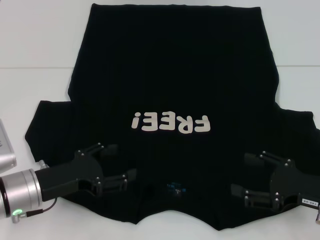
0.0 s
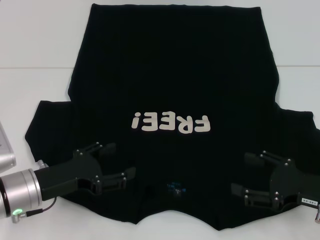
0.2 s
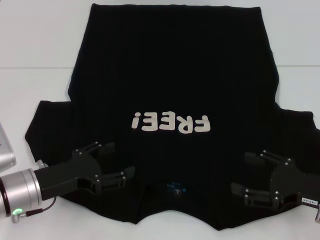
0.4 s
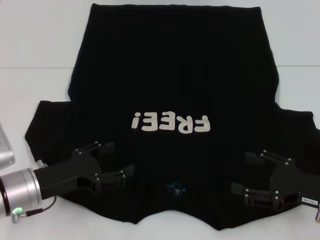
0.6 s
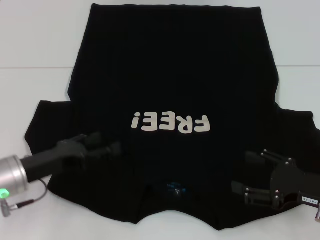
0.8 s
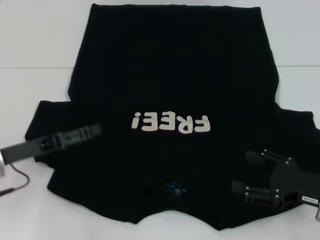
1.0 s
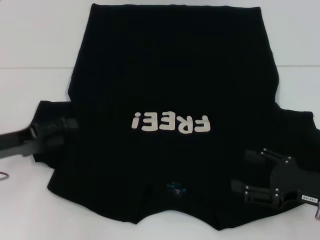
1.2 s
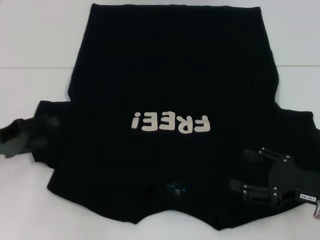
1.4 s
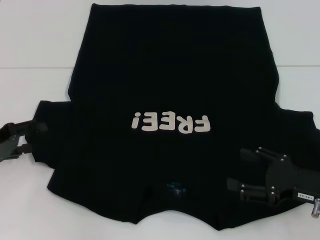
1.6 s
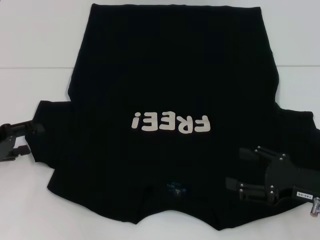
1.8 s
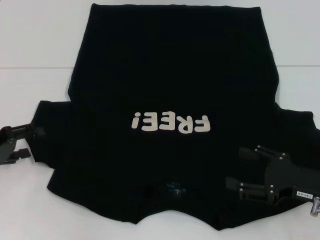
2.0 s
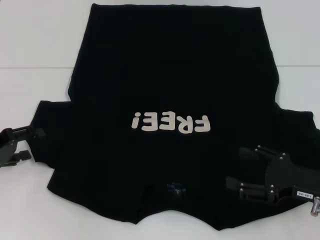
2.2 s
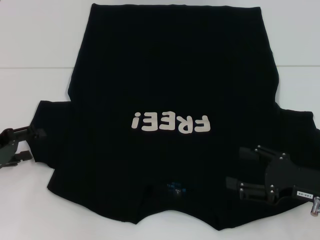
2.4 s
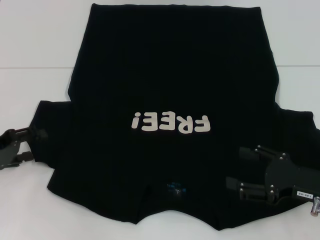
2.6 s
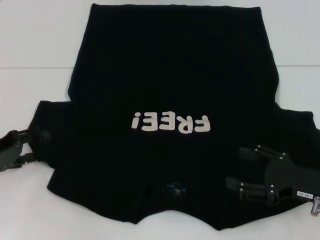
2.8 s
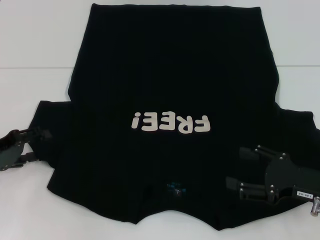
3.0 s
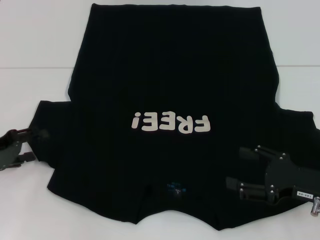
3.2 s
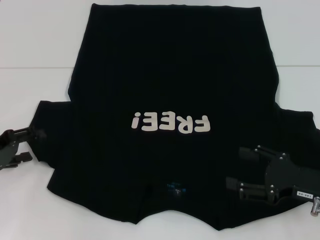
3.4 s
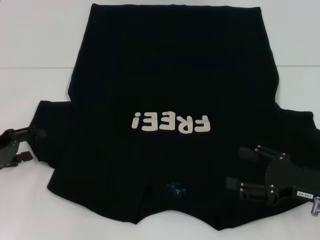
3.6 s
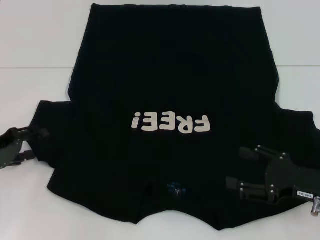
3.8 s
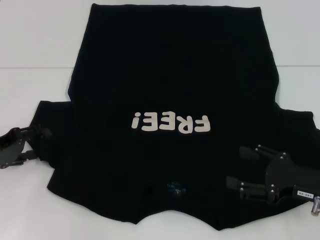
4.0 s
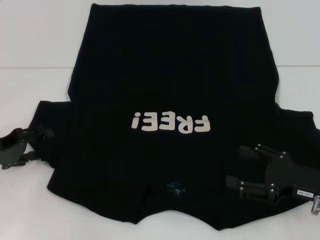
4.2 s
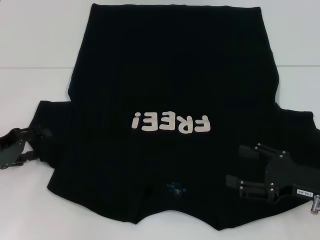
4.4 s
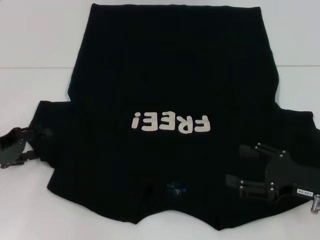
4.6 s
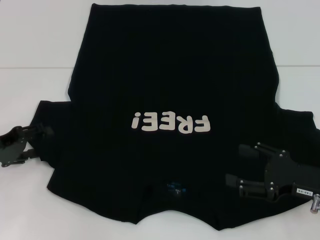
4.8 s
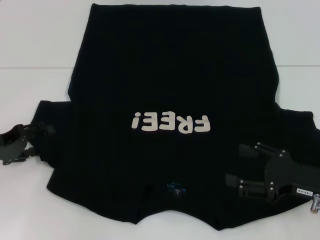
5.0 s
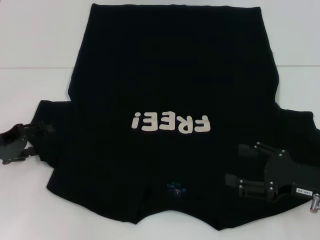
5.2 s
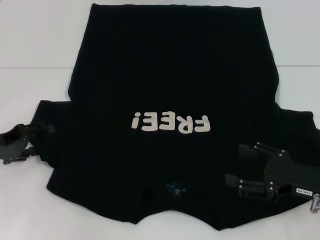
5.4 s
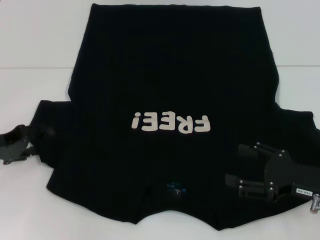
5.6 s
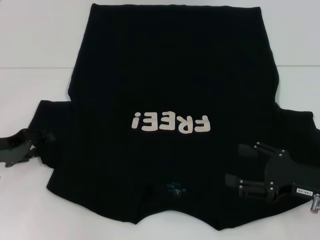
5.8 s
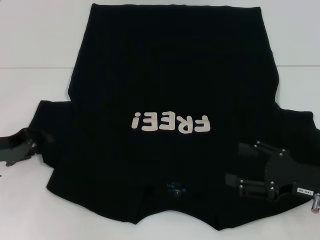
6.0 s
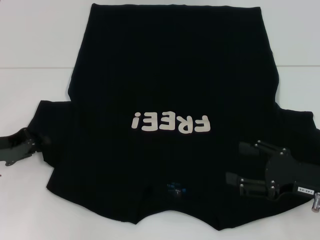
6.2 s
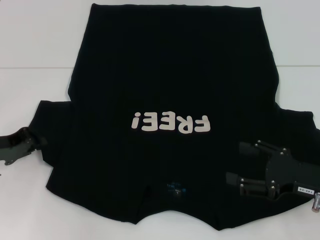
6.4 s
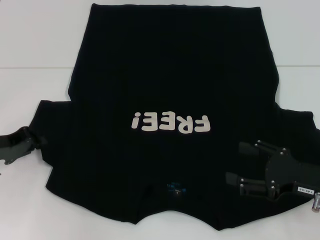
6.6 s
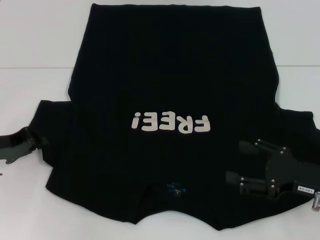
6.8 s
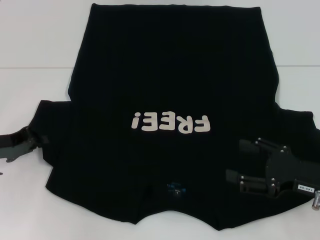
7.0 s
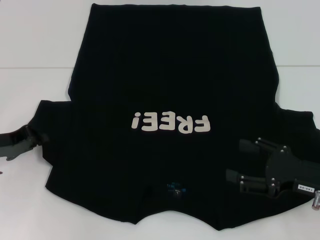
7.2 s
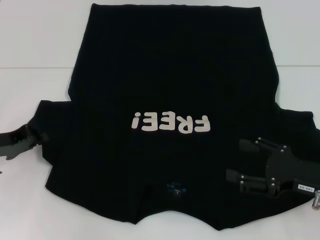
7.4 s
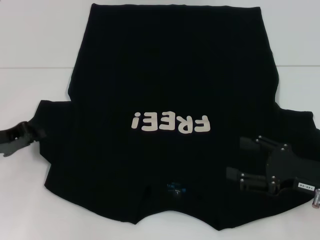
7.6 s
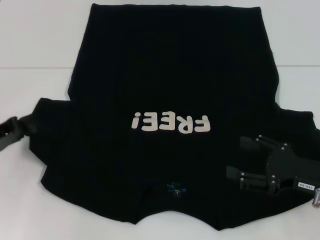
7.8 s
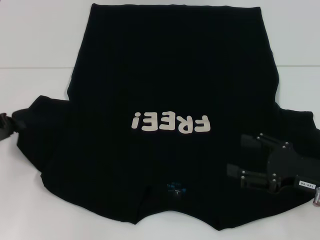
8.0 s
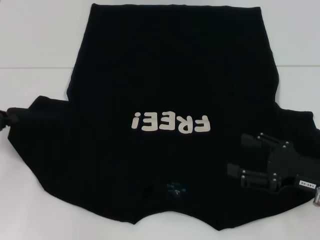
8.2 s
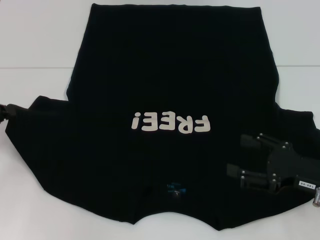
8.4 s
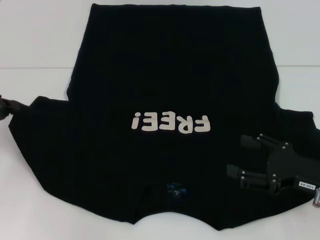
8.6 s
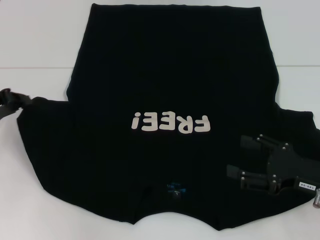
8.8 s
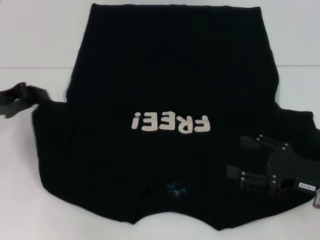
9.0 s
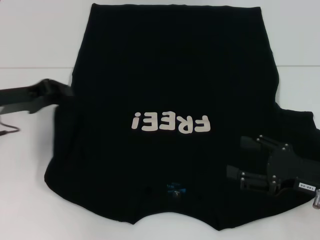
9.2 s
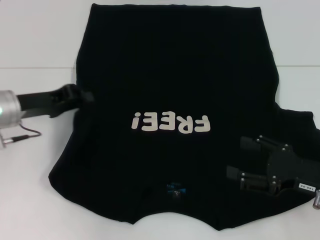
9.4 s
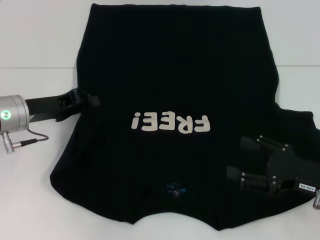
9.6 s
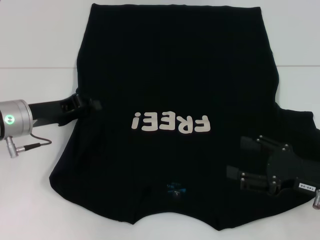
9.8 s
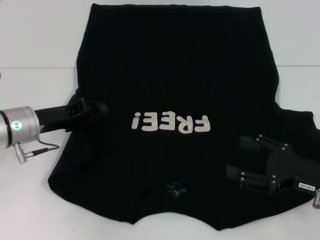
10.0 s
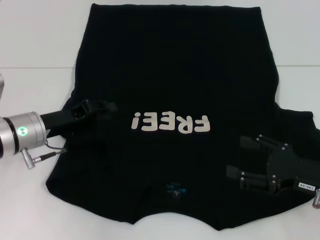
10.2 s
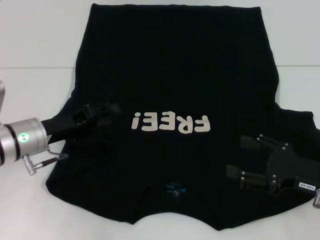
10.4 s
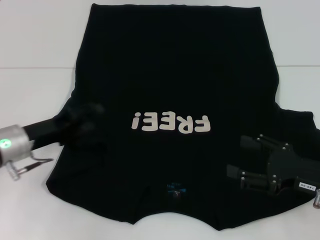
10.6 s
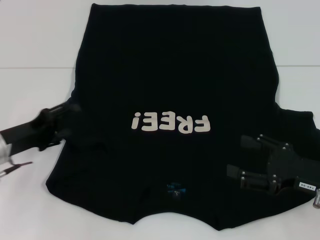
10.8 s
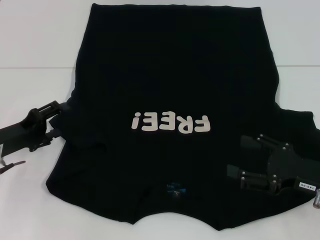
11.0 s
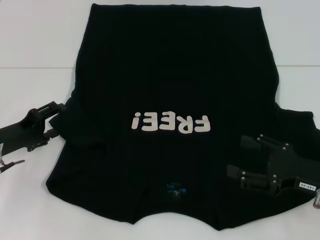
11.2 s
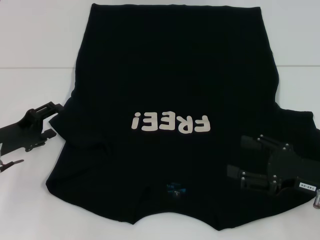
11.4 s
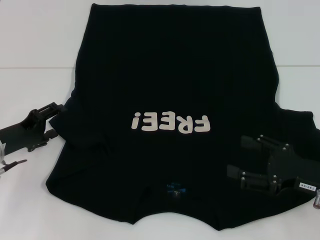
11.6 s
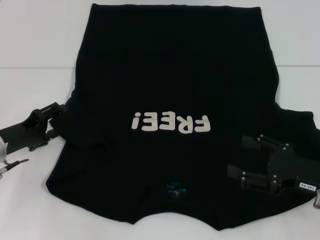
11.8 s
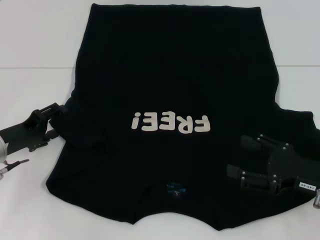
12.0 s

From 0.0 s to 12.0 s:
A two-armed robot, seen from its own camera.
From 0.0 s to 1.6 s: The left gripper is displaced to the left by roughly 10 cm.
From 1.6 s to 3.0 s: The two grippers keep their place.
From 3.0 s to 4.4 s: Neither gripper changes place.
From 4.4 s to 6.0 s: There are only small adjustments of the grippers.
From 6.0 s to 7.6 s: The left gripper closes up.
From 7.6 s to 9.0 s: The left gripper heads upward, covering approximately 5 cm.
From 9.0 s to 10.4 s: The left gripper is displaced to the right and downward by approximately 10 cm, and opens up.
From 10.4 s to 12.0 s: The left gripper moves to the left, roughly 5 cm, and opens its fingers.

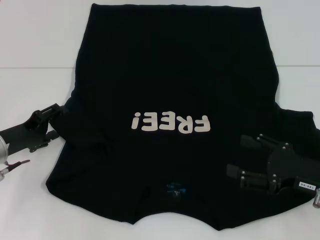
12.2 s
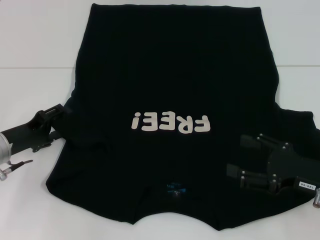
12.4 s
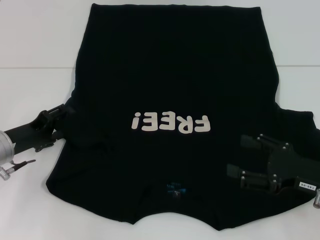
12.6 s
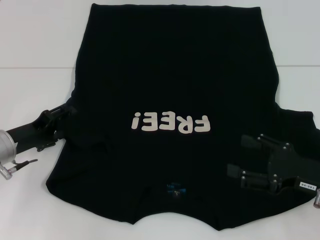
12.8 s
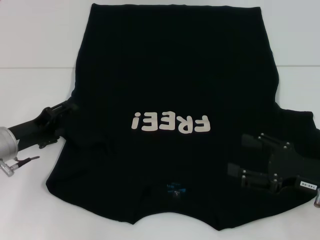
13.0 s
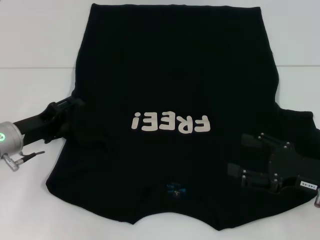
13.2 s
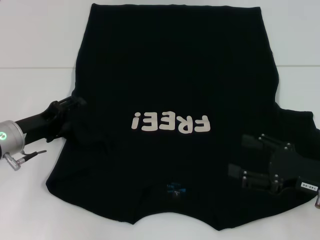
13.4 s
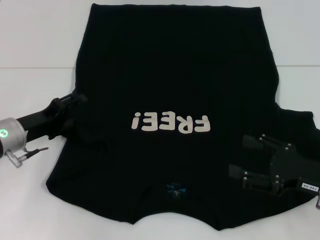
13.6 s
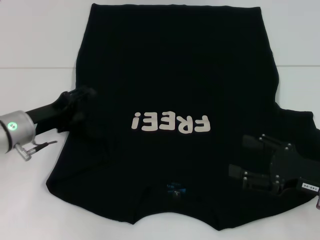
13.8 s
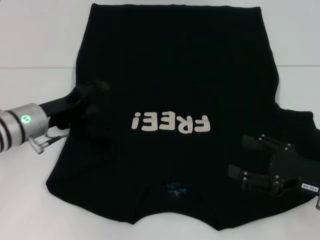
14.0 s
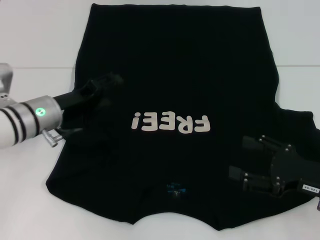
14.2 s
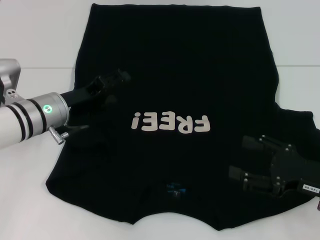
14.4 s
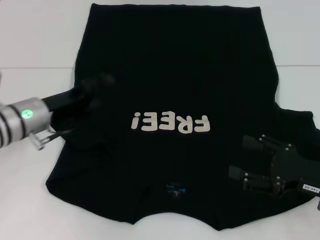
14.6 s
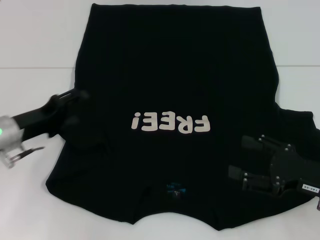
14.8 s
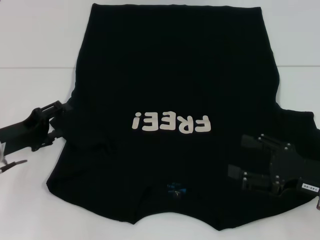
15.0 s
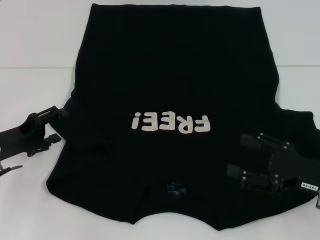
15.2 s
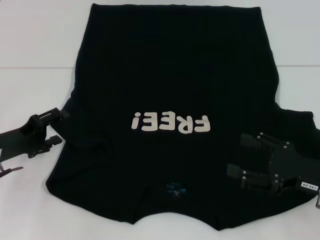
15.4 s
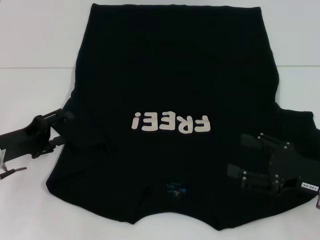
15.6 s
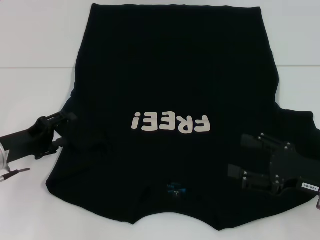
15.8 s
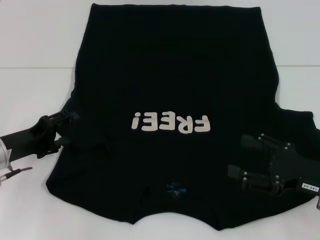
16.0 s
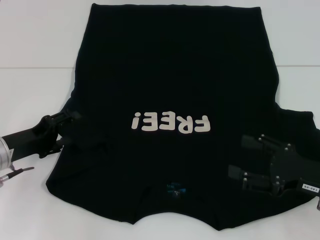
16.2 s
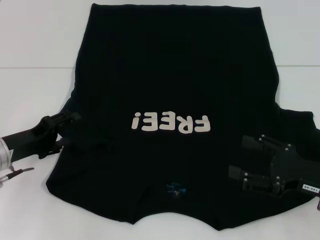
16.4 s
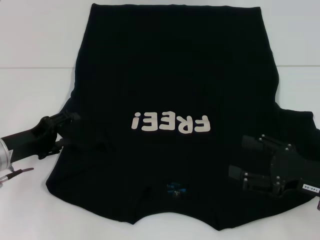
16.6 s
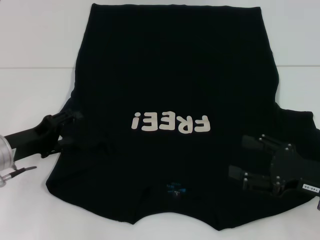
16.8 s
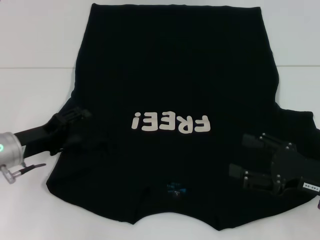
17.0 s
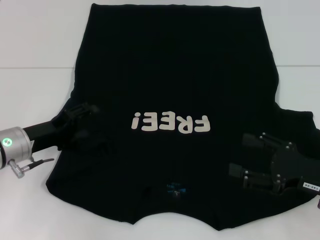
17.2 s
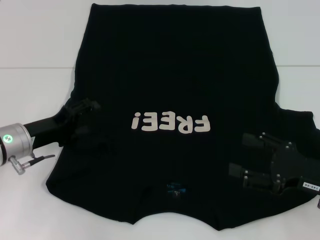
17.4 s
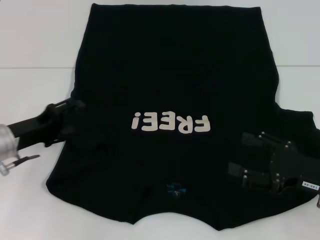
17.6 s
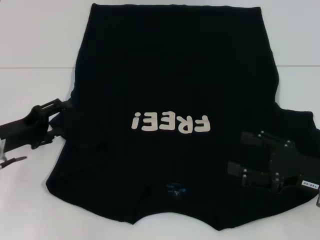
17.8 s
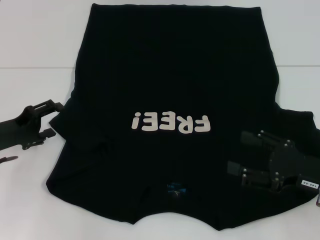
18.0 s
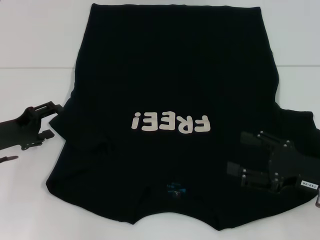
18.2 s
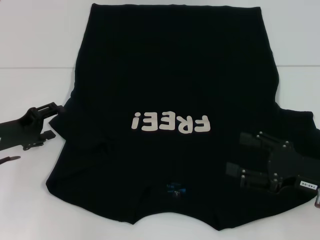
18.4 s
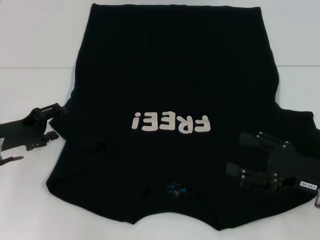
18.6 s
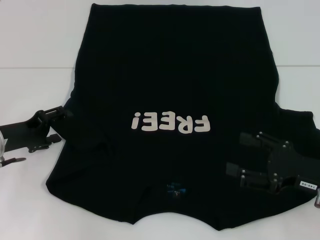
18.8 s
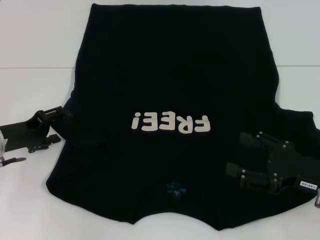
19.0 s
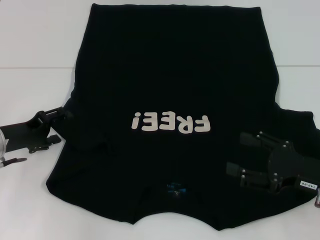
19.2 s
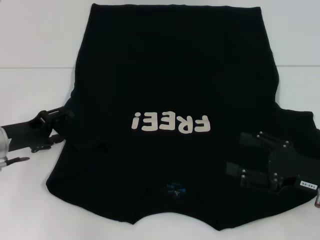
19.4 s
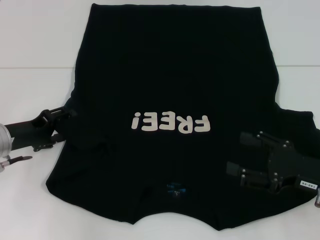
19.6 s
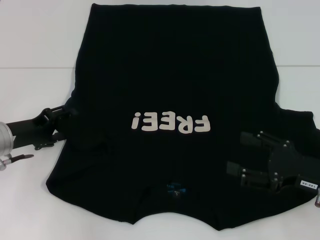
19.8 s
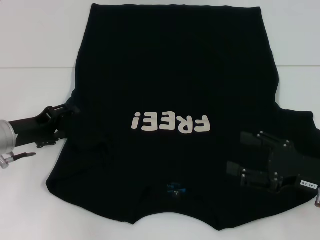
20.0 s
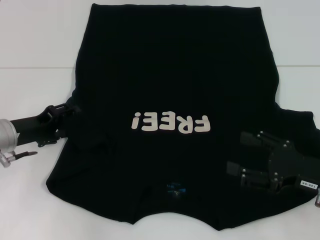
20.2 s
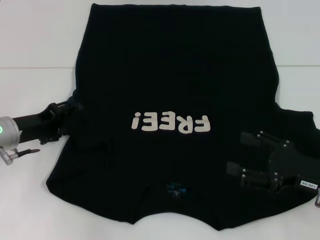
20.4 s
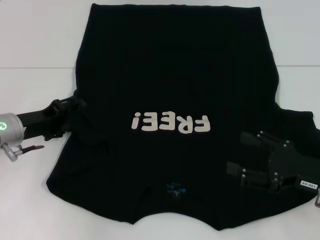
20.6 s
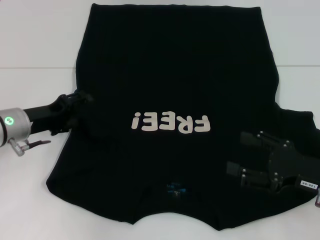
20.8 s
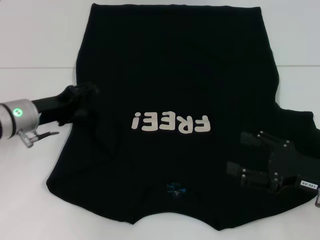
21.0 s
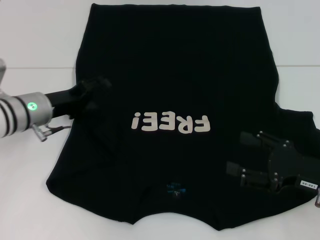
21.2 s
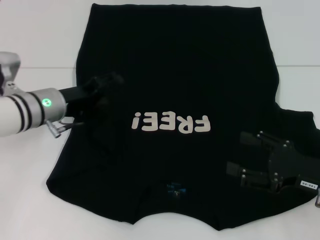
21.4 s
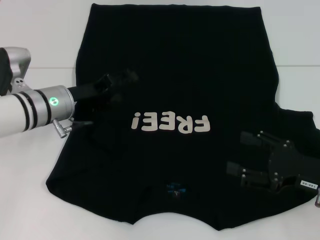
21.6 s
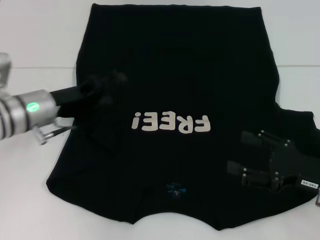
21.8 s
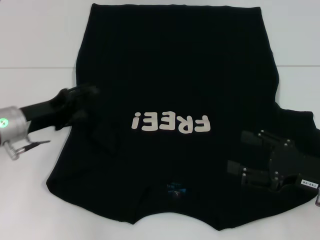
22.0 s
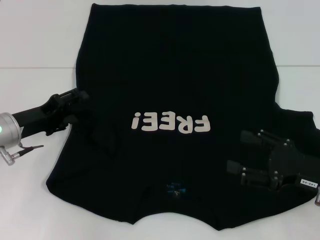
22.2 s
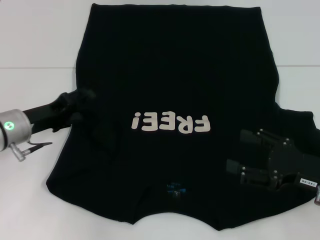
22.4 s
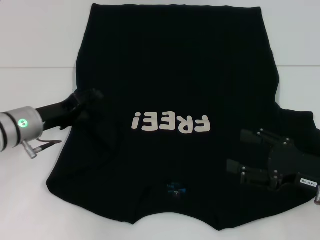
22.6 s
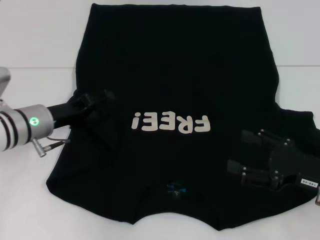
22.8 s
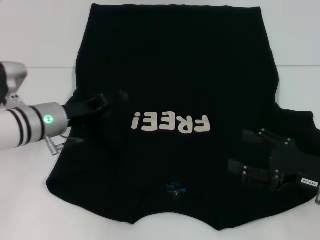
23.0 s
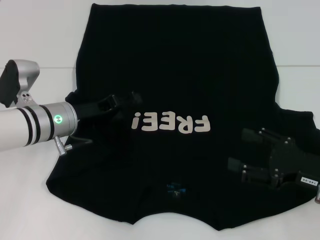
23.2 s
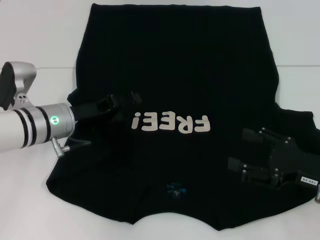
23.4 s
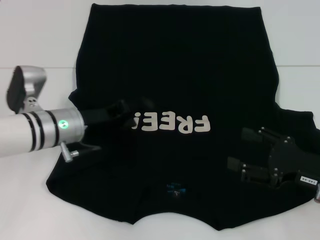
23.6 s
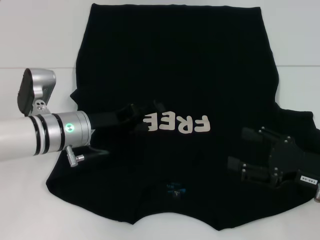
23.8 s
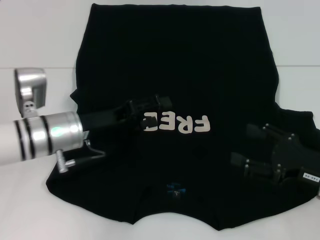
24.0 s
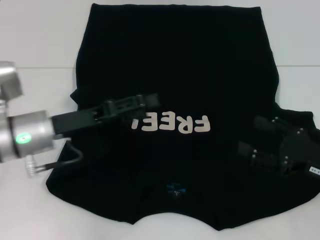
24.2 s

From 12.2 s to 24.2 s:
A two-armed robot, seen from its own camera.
Step, from 12.2 s to 21.8 s: Fold the bottom left sleeve with your left hand.
From 12.2 s to 13.8 s: The left gripper changes place by roughly 5 cm.
From 13.8 s to 15.2 s: The left gripper travels to the left by roughly 5 cm.
From 15.2 s to 19.8 s: The grippers make only small movements.
From 19.8 s to 21.2 s: The left gripper heads to the right, covering about 5 cm.
From 21.2 s to 22.6 s: The grippers move only a little.
From 22.6 s to 24.2 s: The left gripper ends up approximately 5 cm from where it was.
